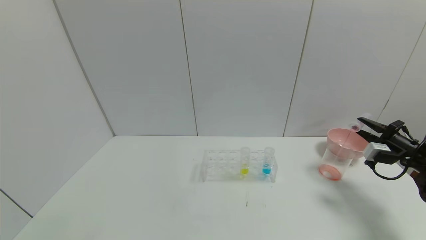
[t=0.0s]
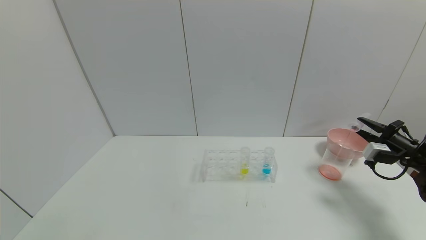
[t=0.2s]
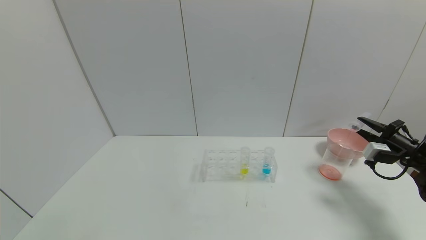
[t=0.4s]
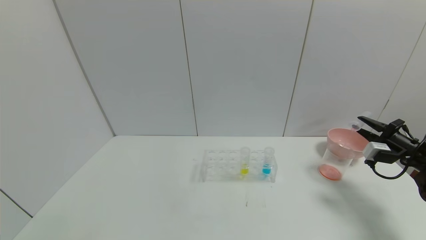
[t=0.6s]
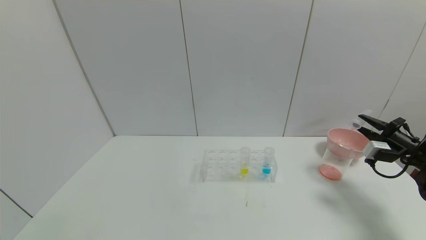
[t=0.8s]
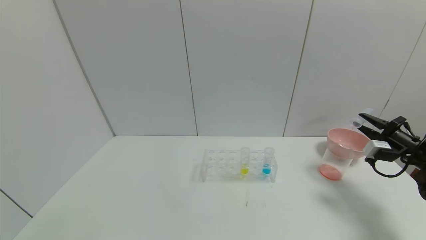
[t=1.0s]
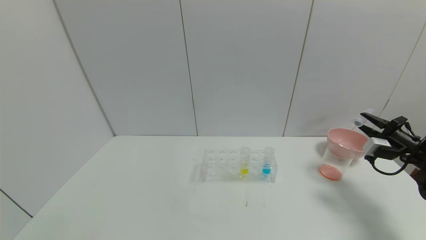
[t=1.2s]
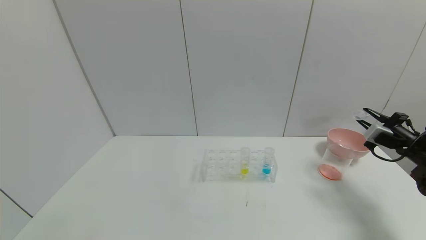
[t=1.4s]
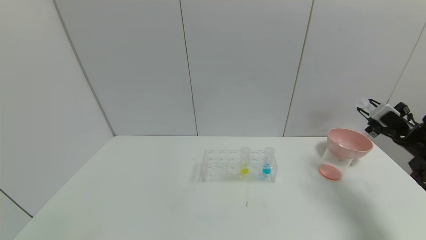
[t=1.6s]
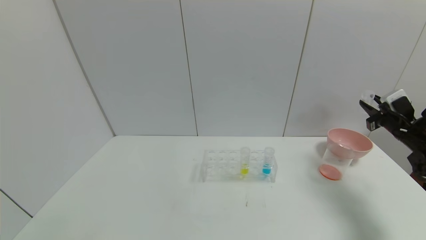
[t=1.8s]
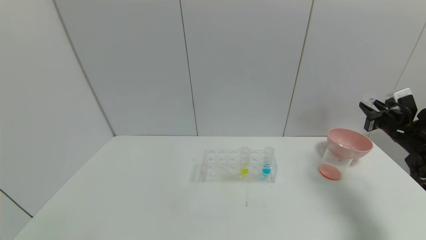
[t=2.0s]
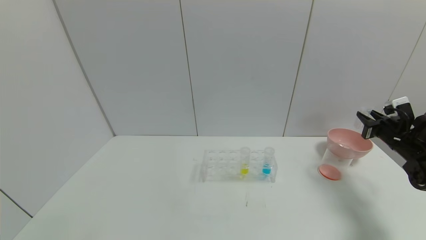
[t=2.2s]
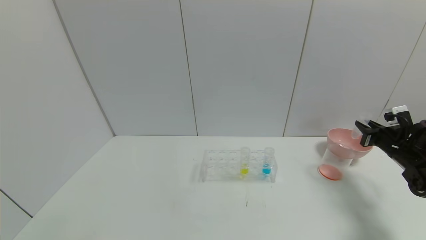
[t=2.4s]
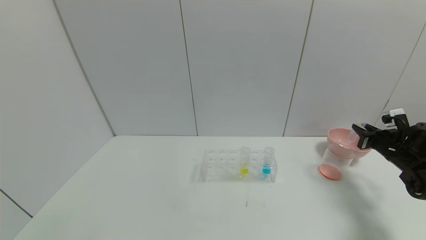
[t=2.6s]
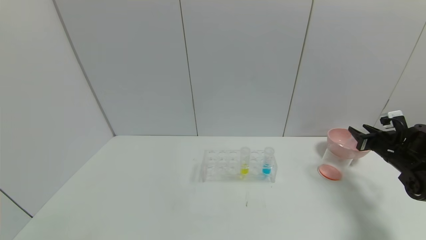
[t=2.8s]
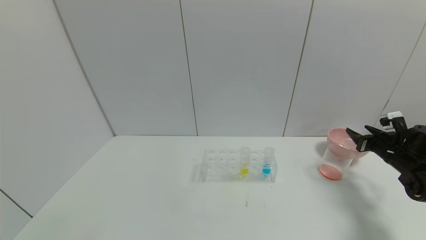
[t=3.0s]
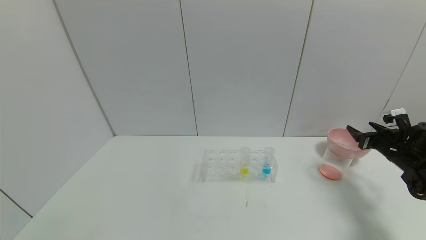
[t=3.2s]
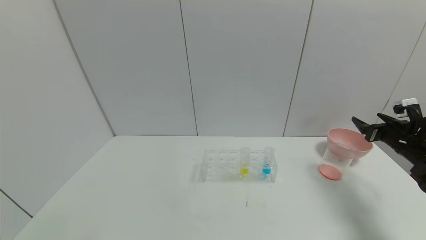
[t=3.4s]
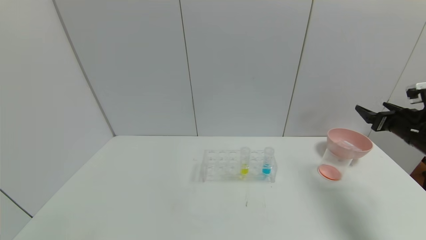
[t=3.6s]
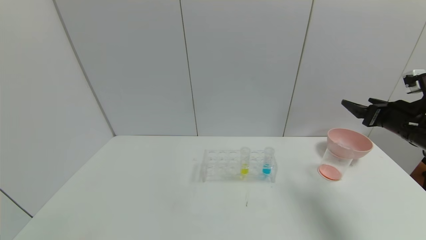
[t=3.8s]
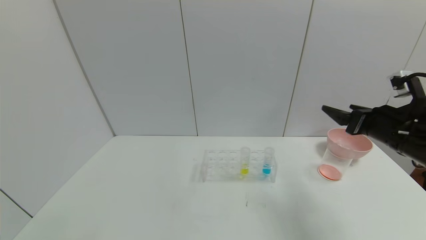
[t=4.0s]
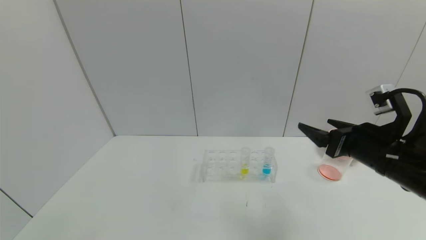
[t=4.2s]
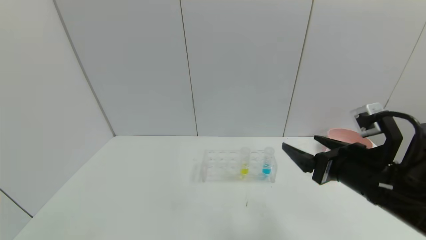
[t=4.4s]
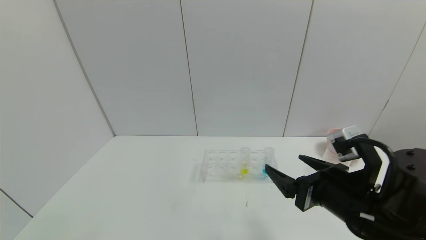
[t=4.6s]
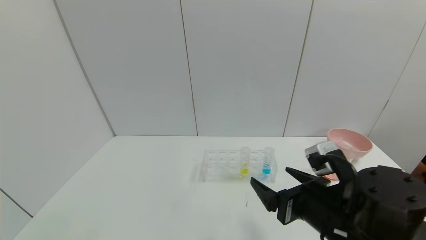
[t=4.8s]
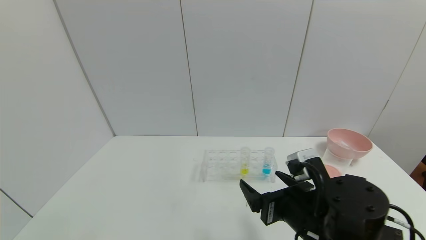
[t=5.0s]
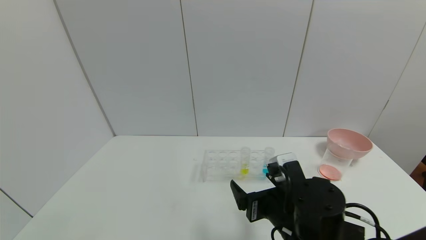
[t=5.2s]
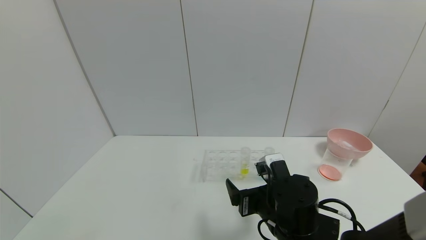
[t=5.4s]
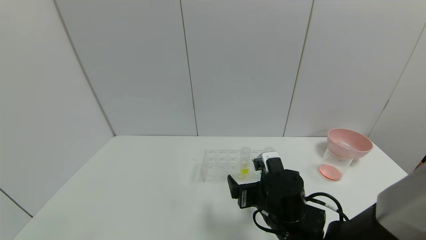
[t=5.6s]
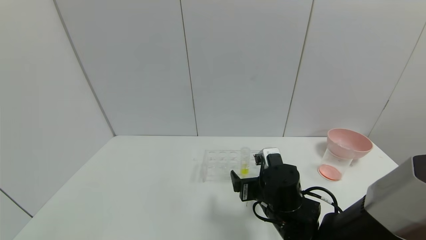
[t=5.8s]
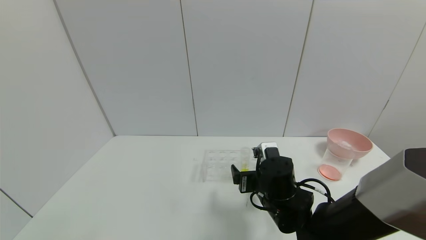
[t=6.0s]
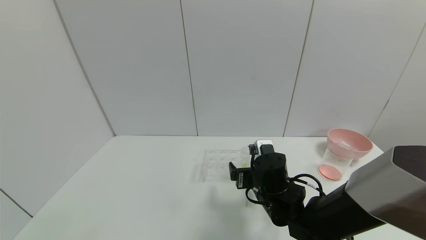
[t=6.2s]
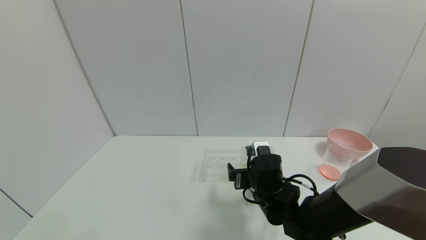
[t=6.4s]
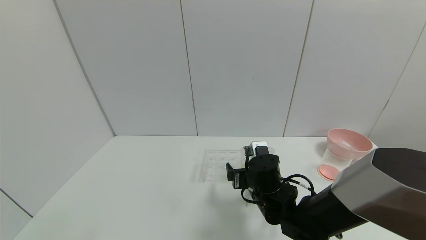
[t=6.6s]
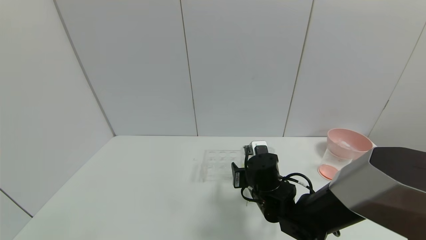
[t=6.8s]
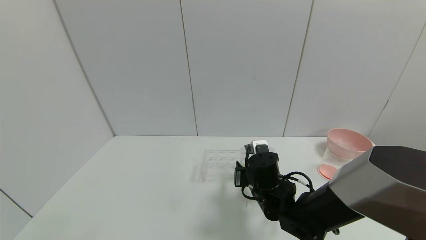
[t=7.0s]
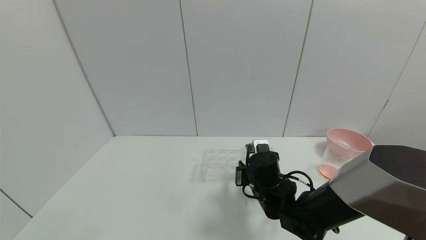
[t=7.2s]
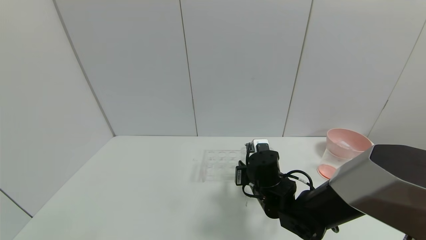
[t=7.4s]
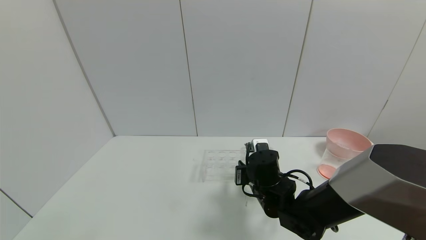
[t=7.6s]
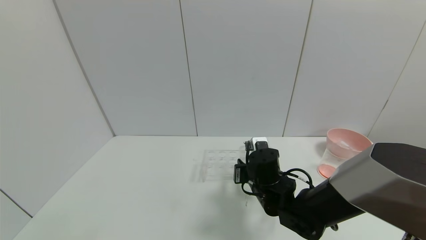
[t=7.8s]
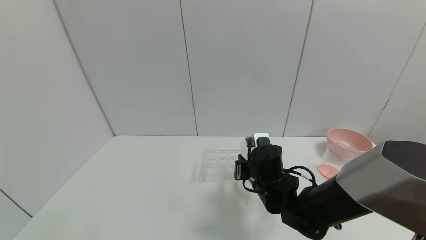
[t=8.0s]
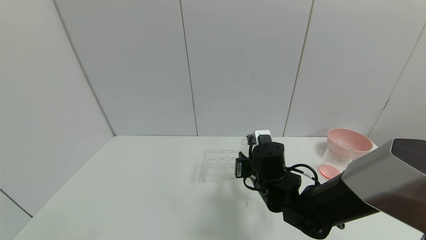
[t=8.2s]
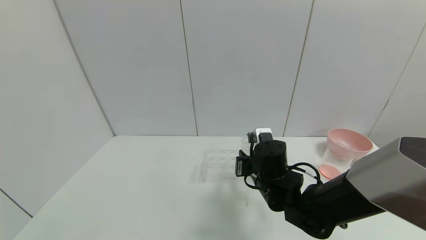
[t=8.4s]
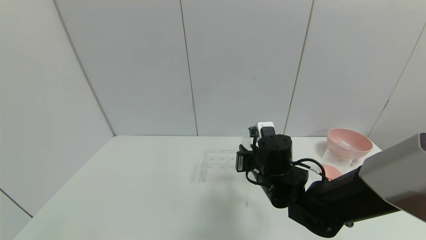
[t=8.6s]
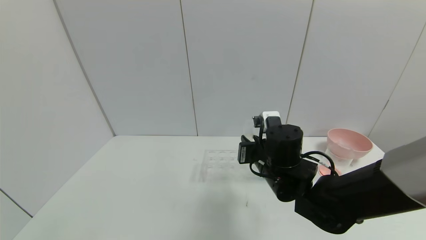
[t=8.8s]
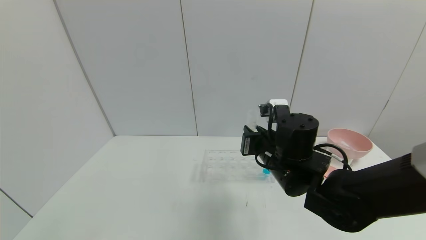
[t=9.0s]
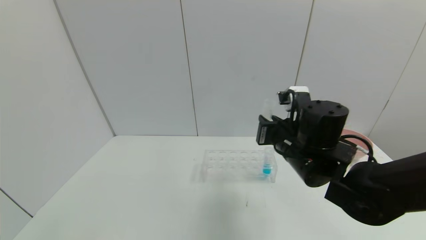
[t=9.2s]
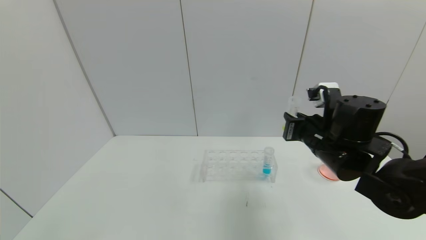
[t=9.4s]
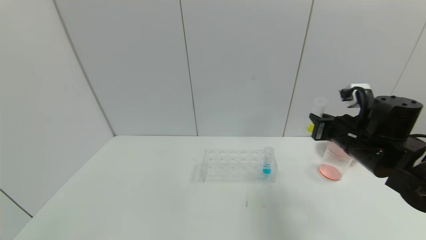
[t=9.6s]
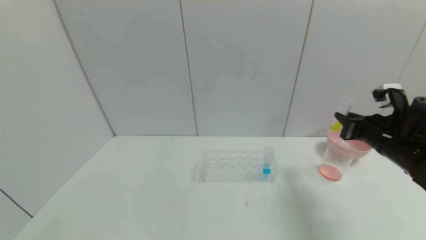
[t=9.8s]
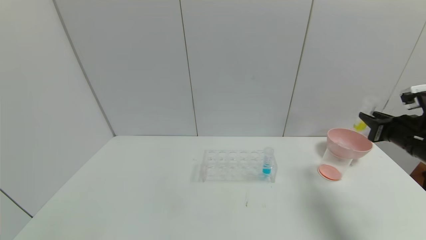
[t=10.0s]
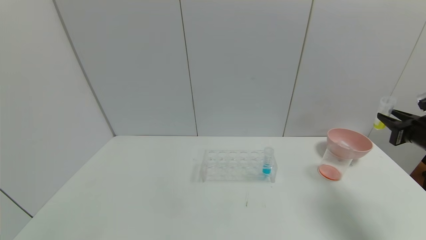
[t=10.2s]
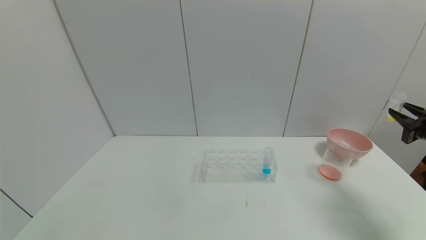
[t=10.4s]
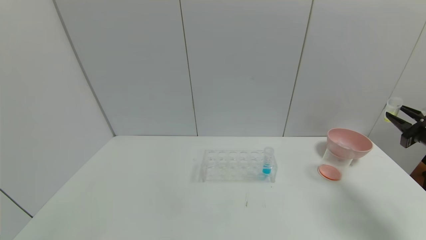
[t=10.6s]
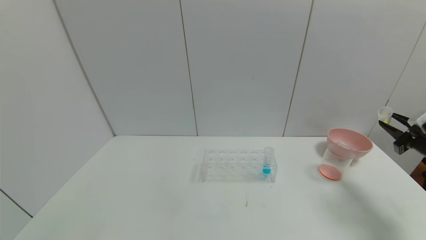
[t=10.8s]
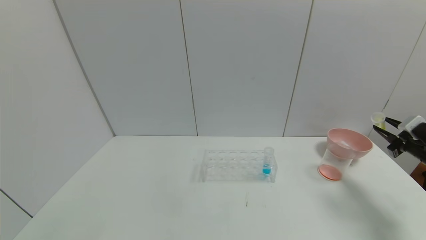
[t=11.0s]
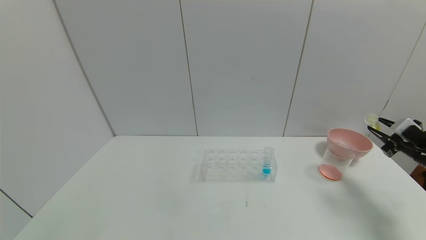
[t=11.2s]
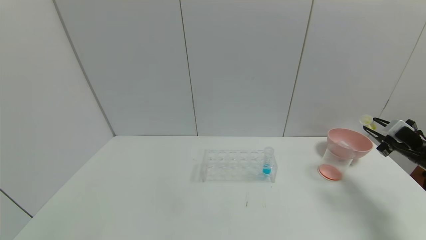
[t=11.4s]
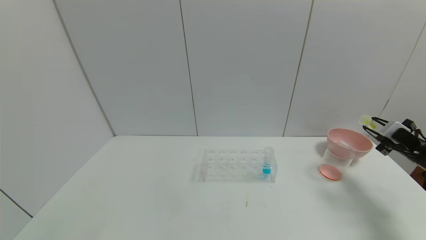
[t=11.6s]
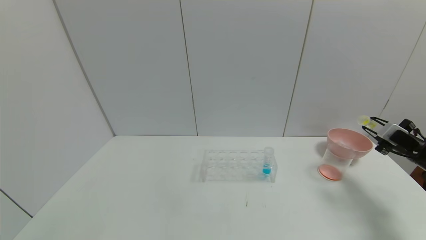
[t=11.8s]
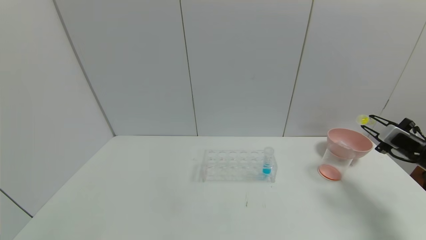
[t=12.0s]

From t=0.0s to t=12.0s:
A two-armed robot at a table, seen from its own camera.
Task of the whole recording: pick up the test tube with yellow pigment and the test tube with red pigment by grippers and pour them into the beaker.
Step, from t=1.6s to t=3.6s: Place the test tube into the bowl with right gripper.
Step, from t=3.8s to t=10.0s: Pick up the test tube containing the yellow reagent with right gripper.
From t=1.6s to t=3.0s: The right gripper goes about 5 cm downward, and opens its fingers.
From t=3.0s to t=4.4s: The right gripper moves to the left and backward, some 30 cm, and opens up.
From t=4.4s to t=6.0s: The right gripper moves to the left, downward and forward, some 20 cm.
From t=6.0s to t=7.6s: The right gripper closes its fingers.
From t=7.6s to t=9.0s: The right gripper heads upward, covering about 10 cm.
From t=9.0s to t=10.4s: The right gripper moves to the right, about 35 cm.
From t=10.4s to t=12.0s: The right gripper heads downward, covering about 5 cm.

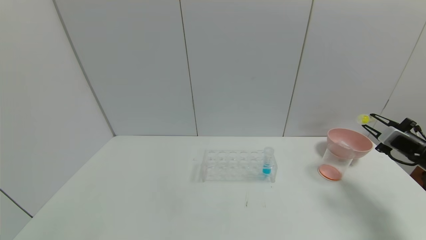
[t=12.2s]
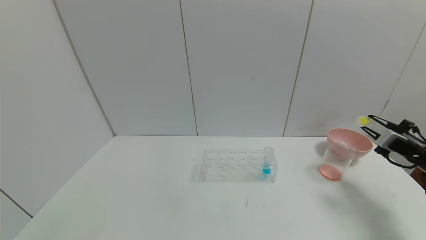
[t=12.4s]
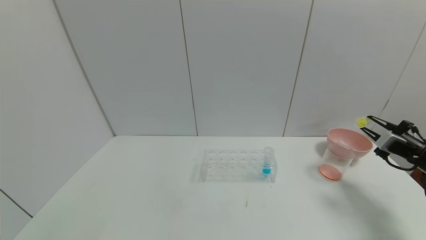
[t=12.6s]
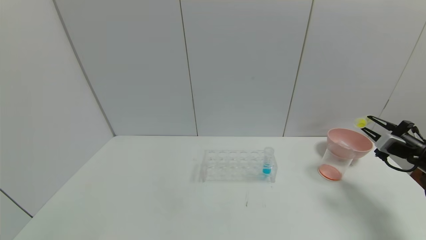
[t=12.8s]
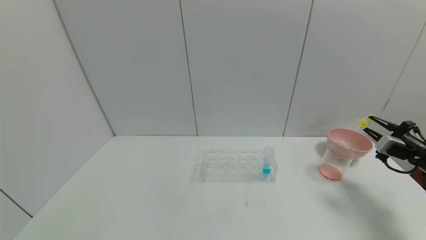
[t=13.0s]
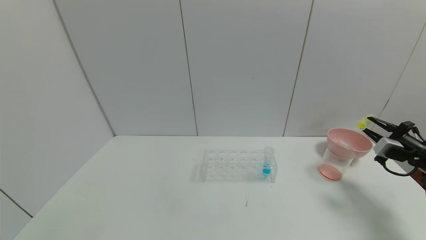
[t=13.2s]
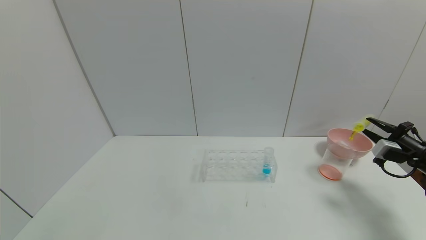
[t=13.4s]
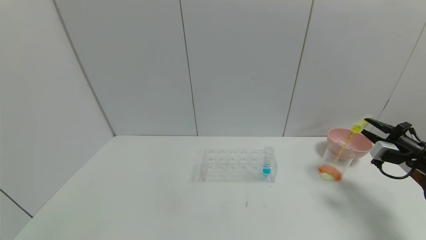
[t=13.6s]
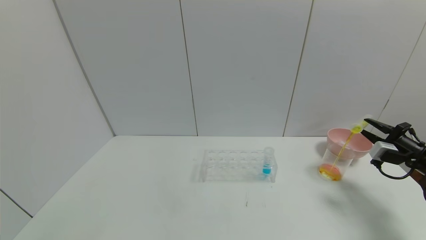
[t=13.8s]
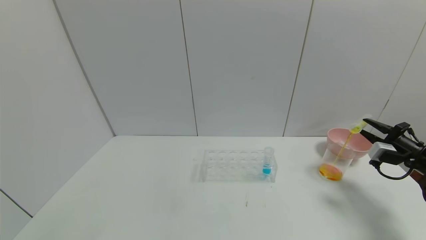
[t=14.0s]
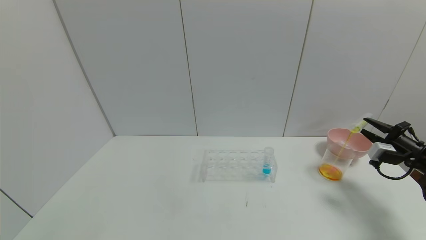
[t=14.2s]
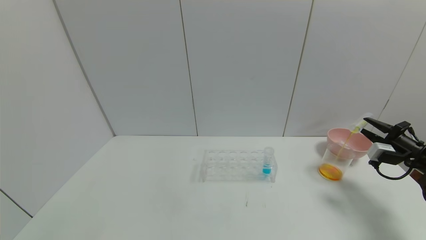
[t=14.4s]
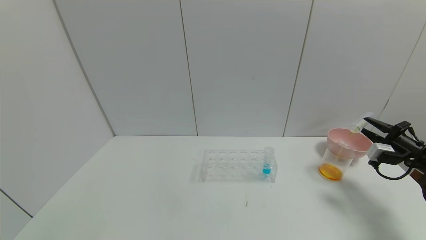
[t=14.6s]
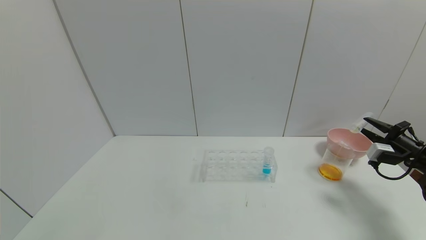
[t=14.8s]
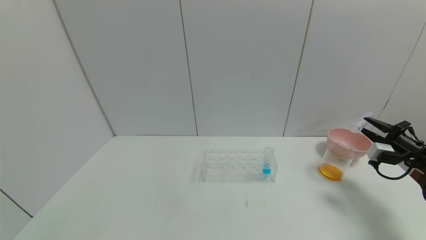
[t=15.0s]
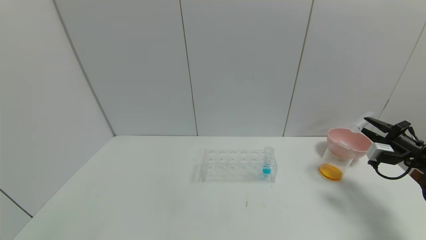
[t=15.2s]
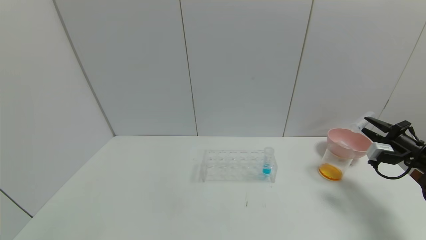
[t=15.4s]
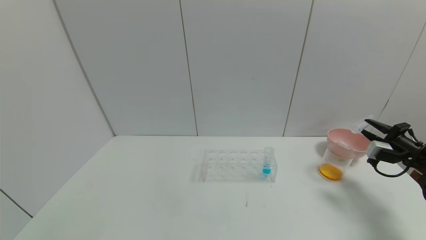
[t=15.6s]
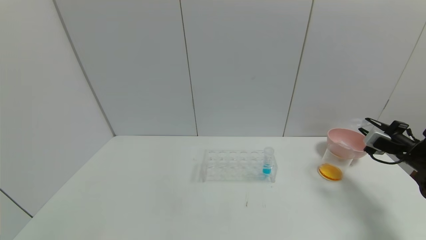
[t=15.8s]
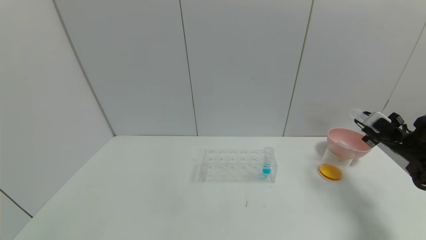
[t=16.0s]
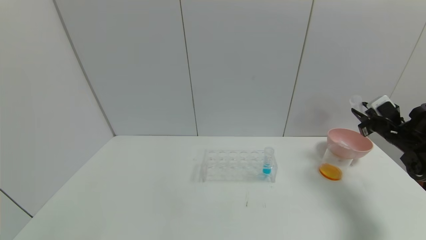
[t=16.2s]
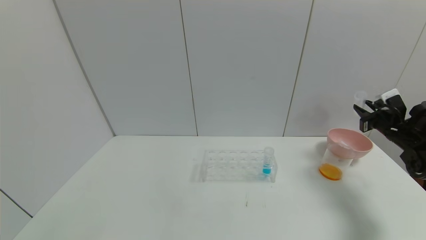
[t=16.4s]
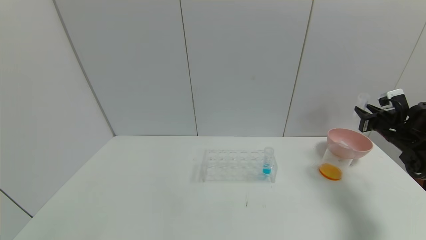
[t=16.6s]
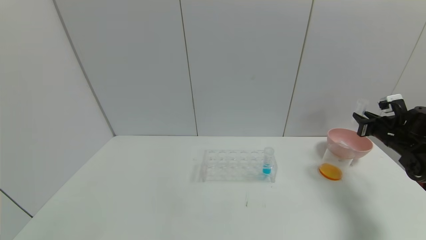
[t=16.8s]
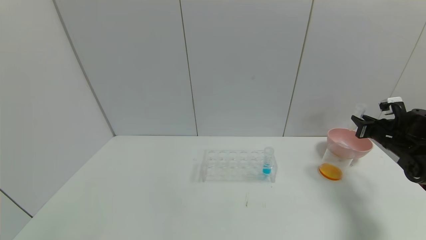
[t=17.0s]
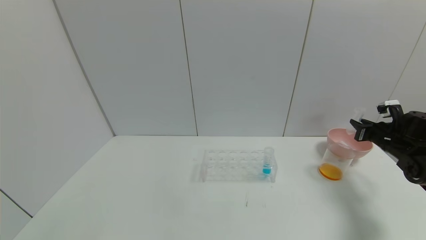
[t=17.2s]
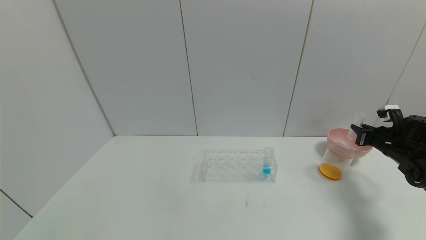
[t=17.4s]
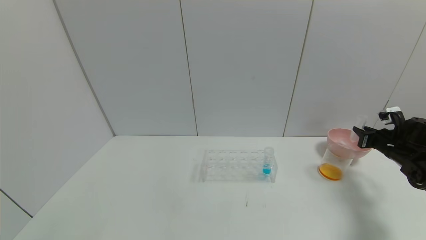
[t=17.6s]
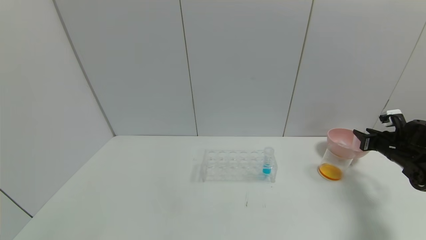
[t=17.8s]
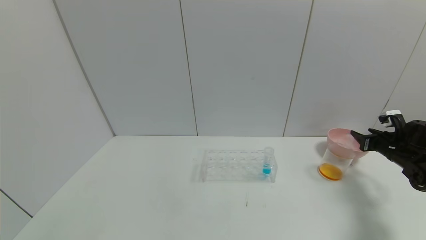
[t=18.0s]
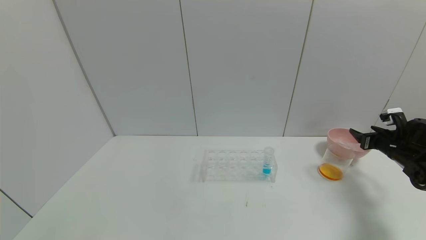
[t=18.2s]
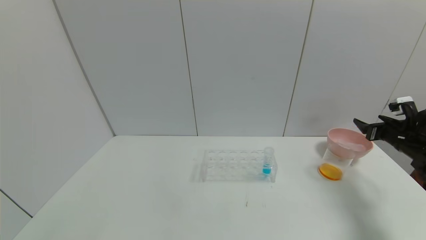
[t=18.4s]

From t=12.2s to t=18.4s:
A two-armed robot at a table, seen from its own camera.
Task of the whole recording: pick up the test tube with yellow pigment and the test tube with red pigment by grippers and pour them into the beaker.
Step, from t=12.2s to t=15.6s: Pour the yellow reagent into the graduated cylinder with right gripper.
Step, from t=15.8s to t=18.4s: Place the test tube into the bowl with right gripper.
From t=12.2s to t=13.8s: The grippers make only small movements.
From t=13.8s to t=15.4s: The grippers move only a little.
From t=15.4s to t=16.8s: The right gripper shifts by approximately 5 cm.
From t=16.8s to t=18.4s: The right gripper opens its fingers.
